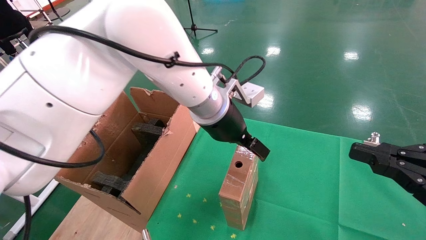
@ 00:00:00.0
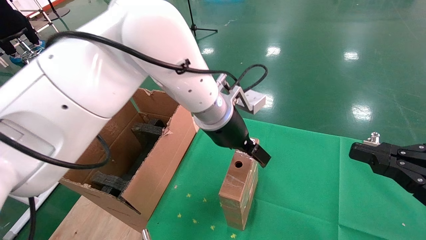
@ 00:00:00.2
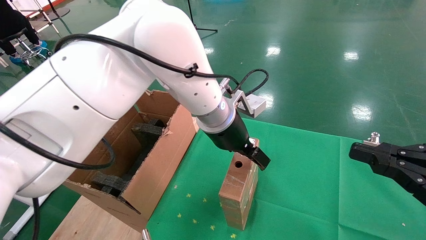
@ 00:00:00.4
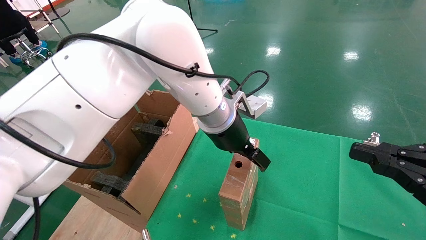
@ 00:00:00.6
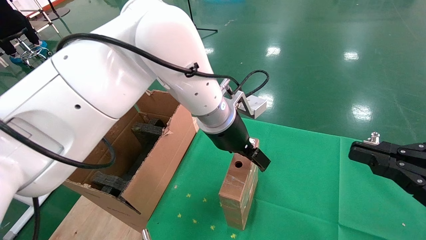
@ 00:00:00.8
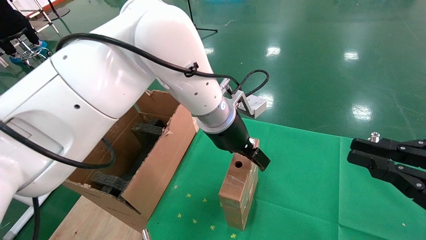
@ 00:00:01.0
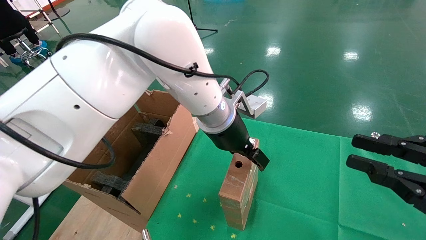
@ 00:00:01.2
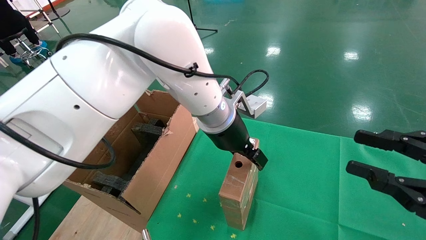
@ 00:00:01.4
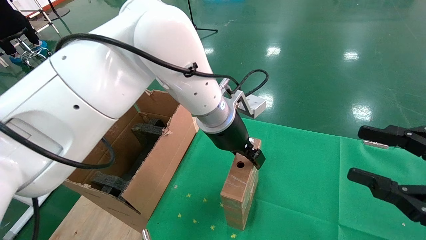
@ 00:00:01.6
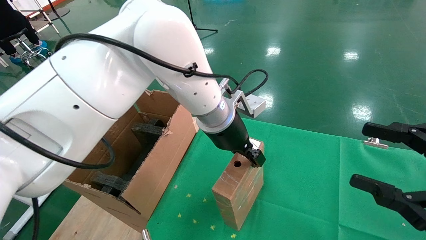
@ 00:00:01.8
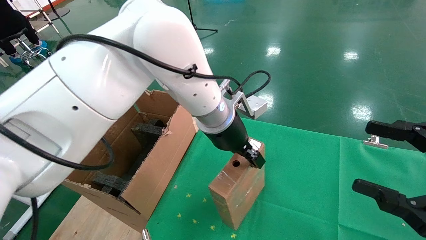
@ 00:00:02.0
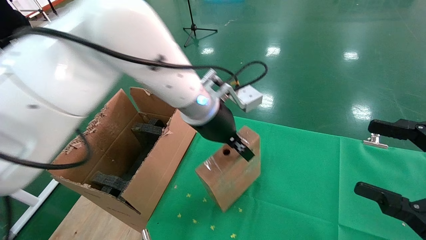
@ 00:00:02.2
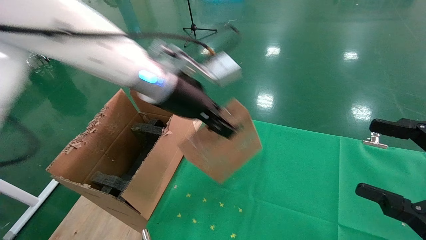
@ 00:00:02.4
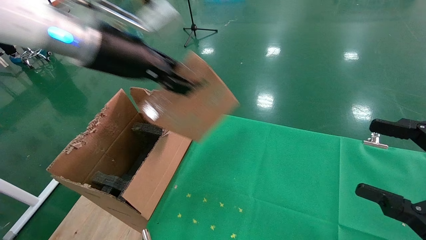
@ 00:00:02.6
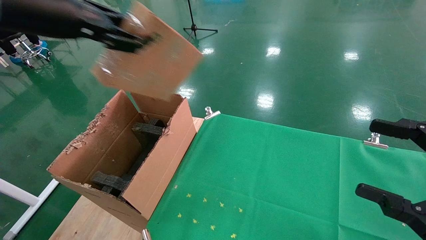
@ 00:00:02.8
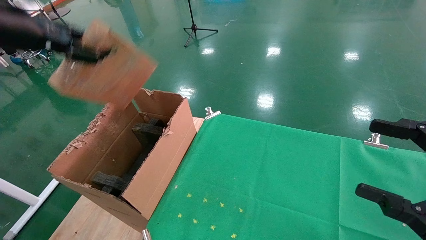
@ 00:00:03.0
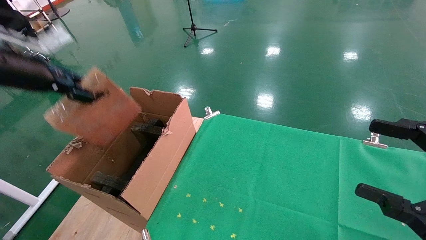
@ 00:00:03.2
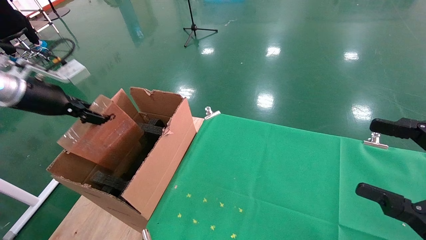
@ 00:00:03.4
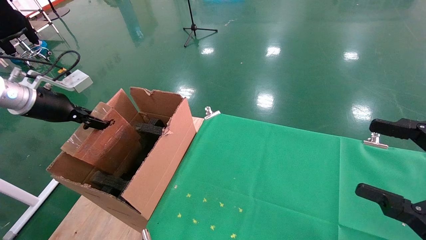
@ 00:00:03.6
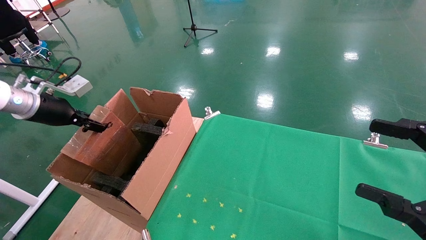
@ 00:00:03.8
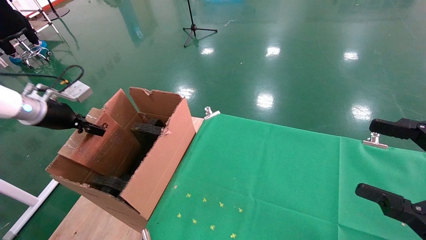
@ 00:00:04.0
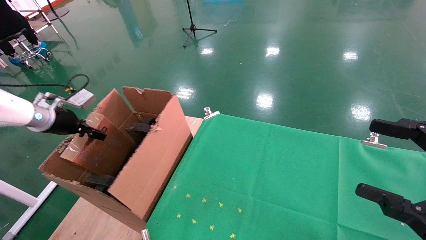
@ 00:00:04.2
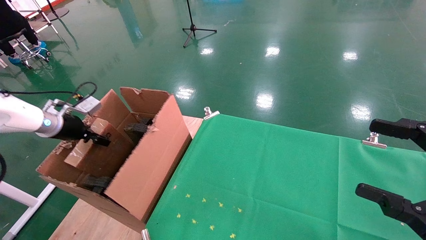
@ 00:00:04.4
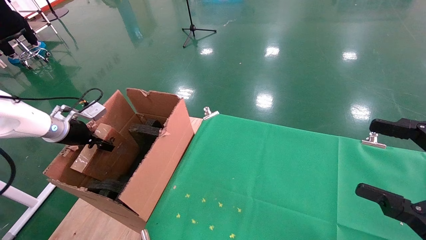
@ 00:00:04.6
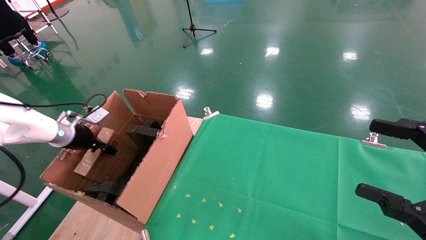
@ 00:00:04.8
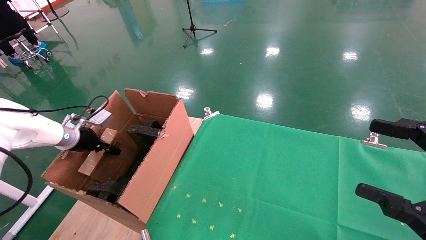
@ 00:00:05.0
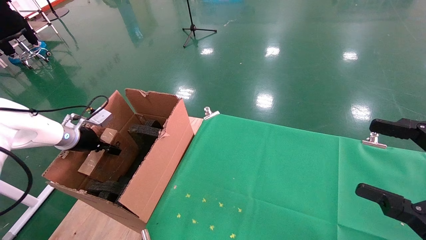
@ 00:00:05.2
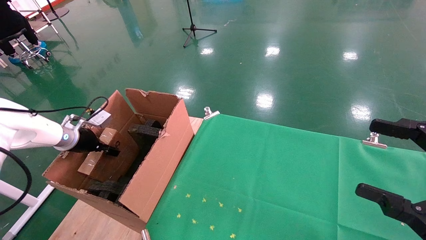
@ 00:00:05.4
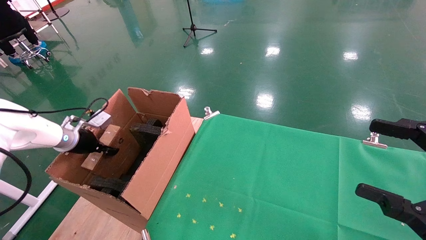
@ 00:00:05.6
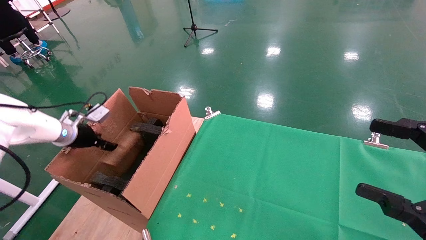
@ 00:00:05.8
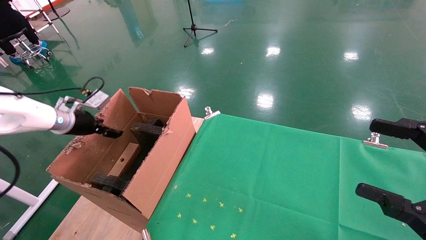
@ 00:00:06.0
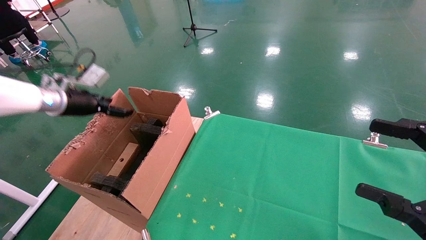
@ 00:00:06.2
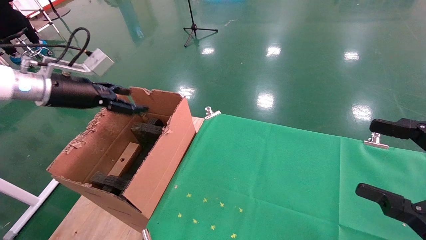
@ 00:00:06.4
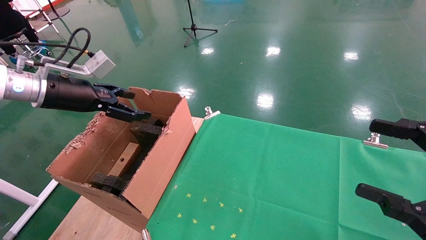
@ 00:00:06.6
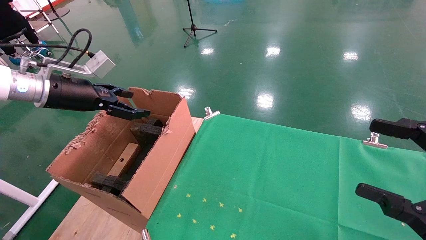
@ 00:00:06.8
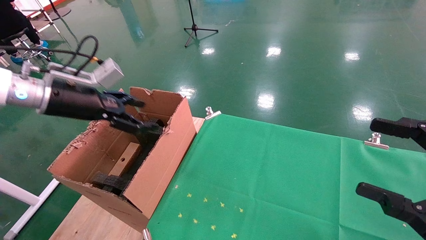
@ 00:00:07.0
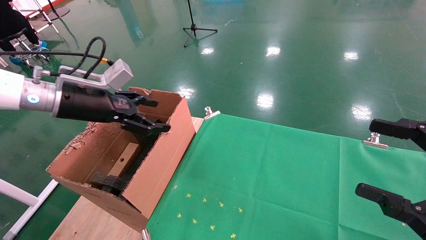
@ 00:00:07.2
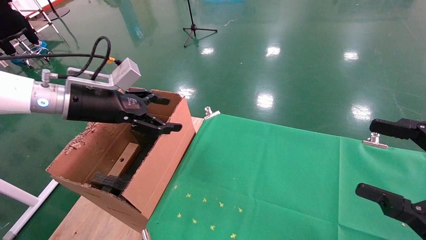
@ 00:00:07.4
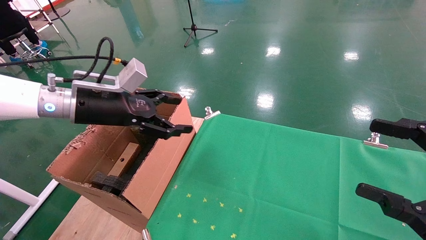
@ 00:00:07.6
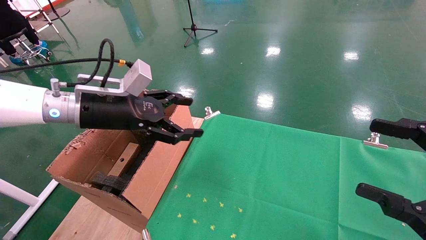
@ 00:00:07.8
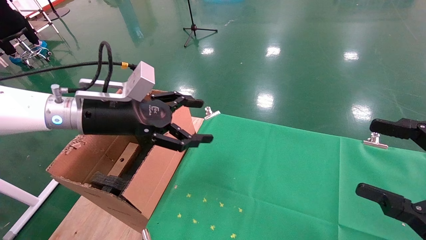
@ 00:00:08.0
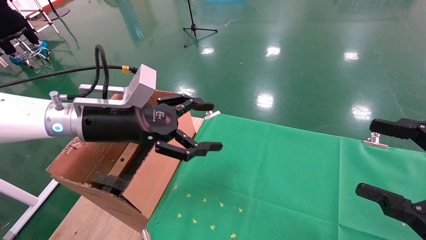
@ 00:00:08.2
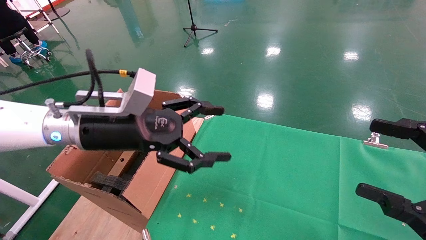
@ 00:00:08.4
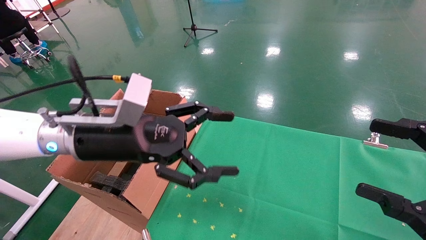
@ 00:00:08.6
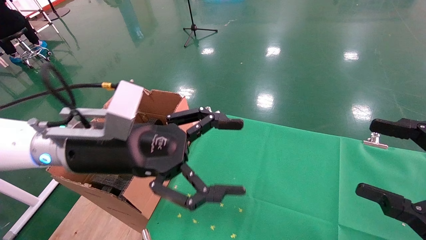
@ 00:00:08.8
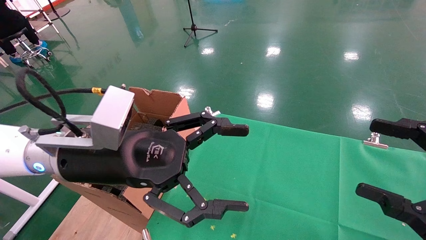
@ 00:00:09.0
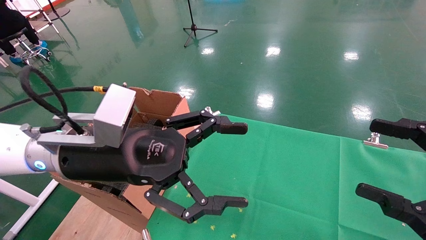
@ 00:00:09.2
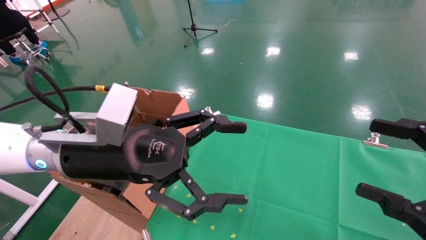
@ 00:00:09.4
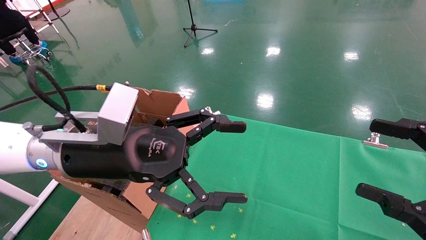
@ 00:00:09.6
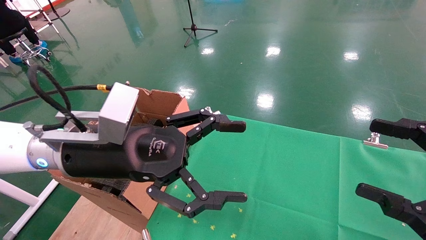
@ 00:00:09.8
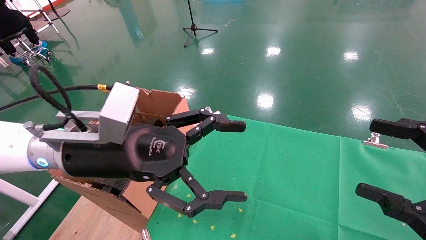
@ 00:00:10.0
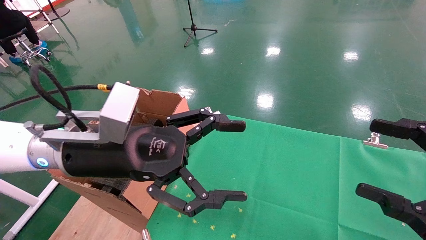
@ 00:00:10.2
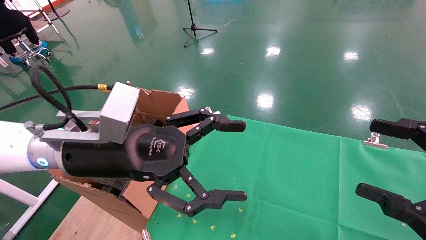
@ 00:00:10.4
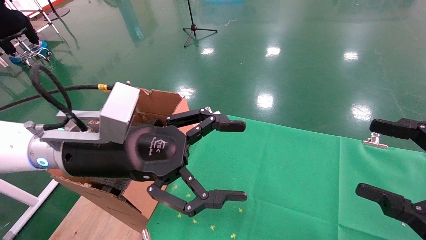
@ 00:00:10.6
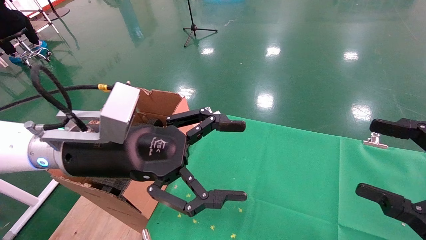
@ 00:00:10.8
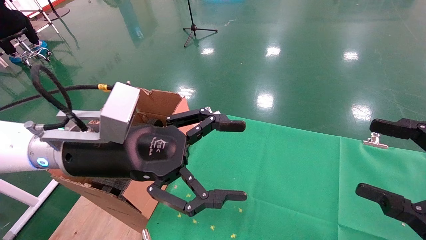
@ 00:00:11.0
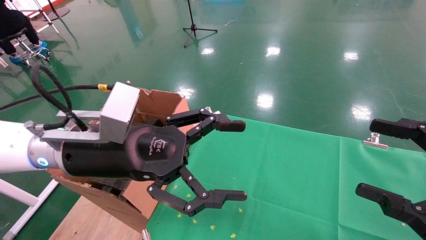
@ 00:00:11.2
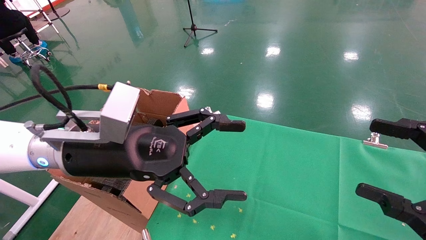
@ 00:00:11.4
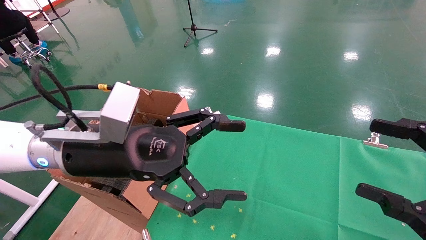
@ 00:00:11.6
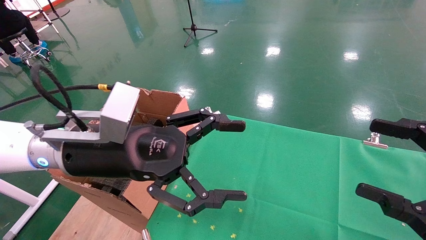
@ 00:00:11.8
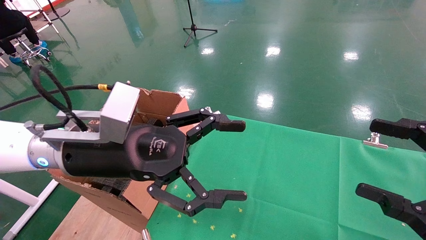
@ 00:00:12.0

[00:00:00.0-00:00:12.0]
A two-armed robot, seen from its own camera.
Task of the whole recording: using a robotic arm to pick up a cardboard box and palace it the carton.
Step, 00:00:02.0 to 00:00:06.2: Place the mouse and the power cord paper box into the container.
00:00:00.0 to 00:00:01.6: The left gripper closes. The right gripper opens up.
00:00:01.6 to 00:00:03.0: The right gripper opens up; the left gripper is displaced to the left by some 35 cm, and closes its fingers.
00:00:03.0 to 00:00:04.4: The left gripper goes some 25 cm downward, to the left and forward.
00:00:04.4 to 00:00:06.0: The left gripper opens.
00:00:06.0 to 00:00:07.6: The left gripper heads to the right, backward and upward, covering roughly 20 cm, and opens.
00:00:07.6 to 00:00:09.0: The left gripper is displaced backward and to the right by roughly 15 cm.
00:00:09.0 to 00:00:12.0: Both grippers stay about where they are.
